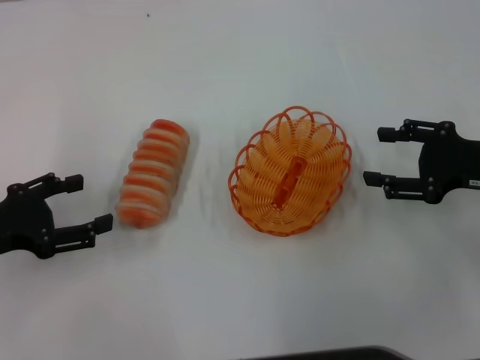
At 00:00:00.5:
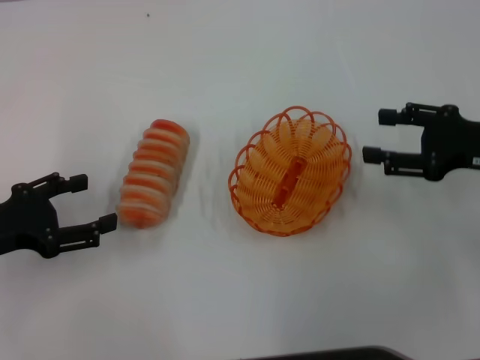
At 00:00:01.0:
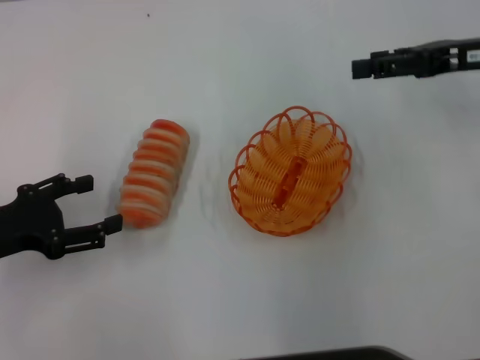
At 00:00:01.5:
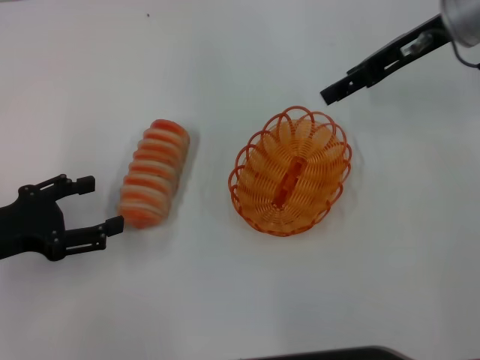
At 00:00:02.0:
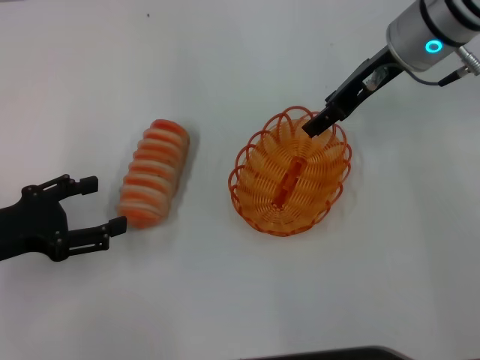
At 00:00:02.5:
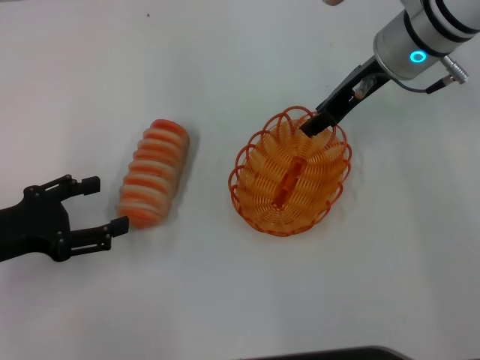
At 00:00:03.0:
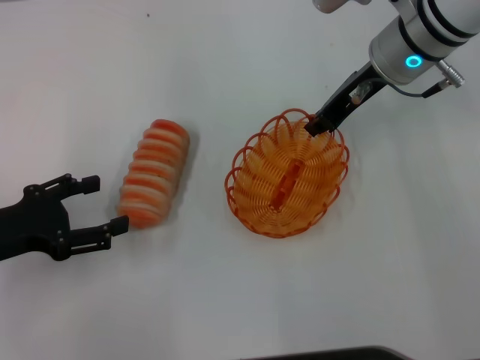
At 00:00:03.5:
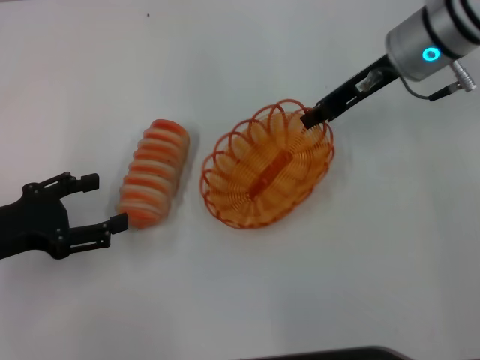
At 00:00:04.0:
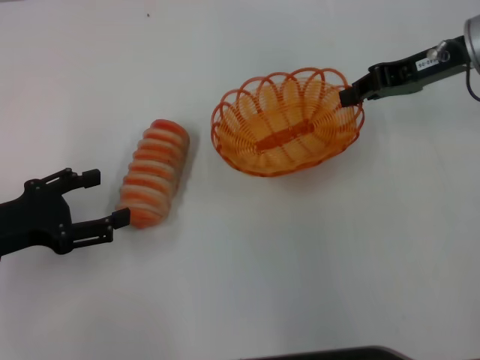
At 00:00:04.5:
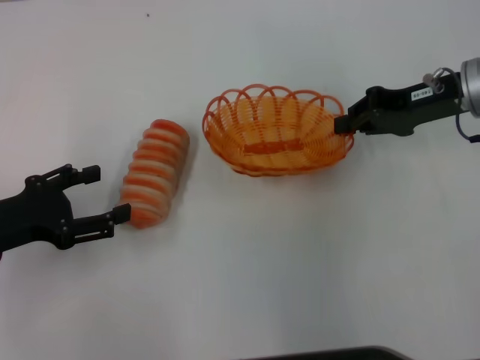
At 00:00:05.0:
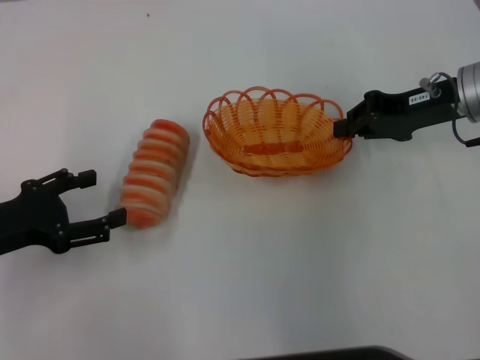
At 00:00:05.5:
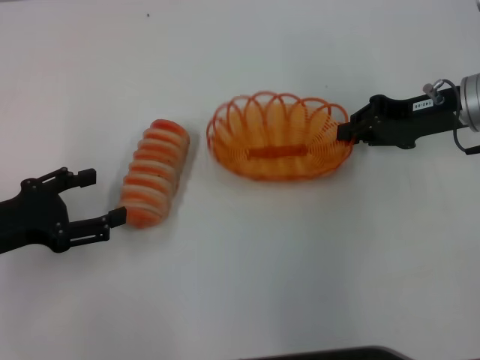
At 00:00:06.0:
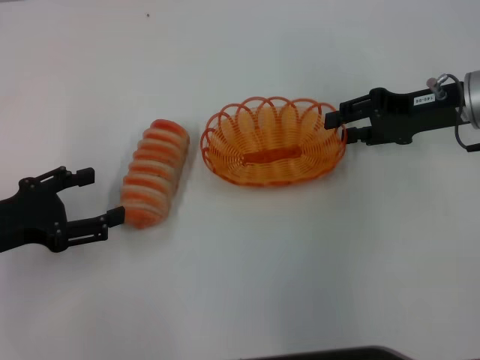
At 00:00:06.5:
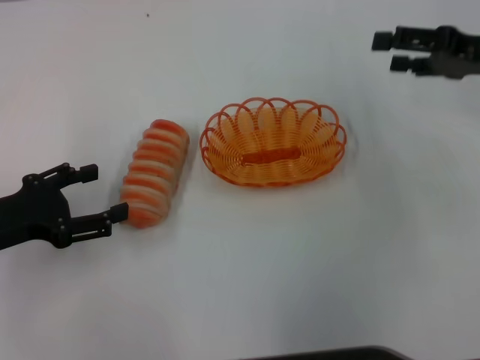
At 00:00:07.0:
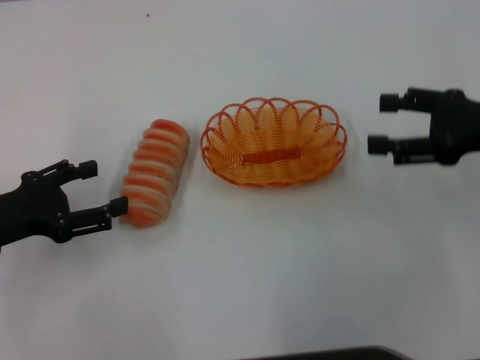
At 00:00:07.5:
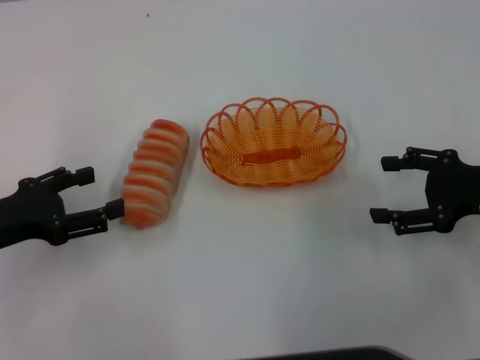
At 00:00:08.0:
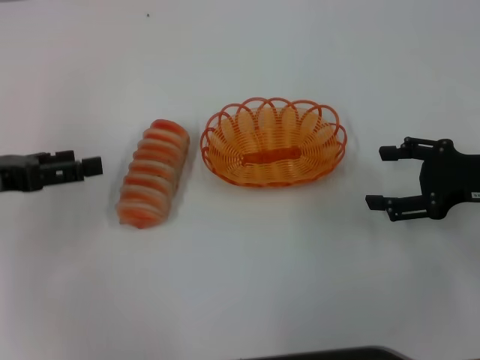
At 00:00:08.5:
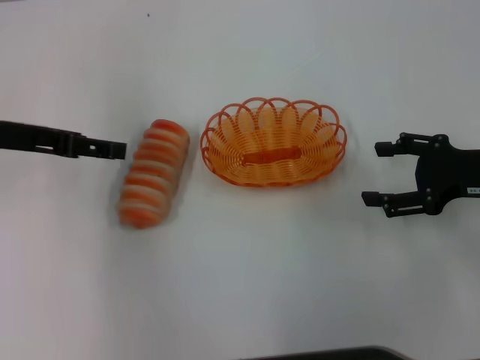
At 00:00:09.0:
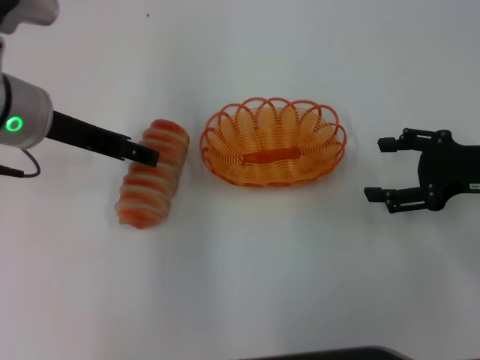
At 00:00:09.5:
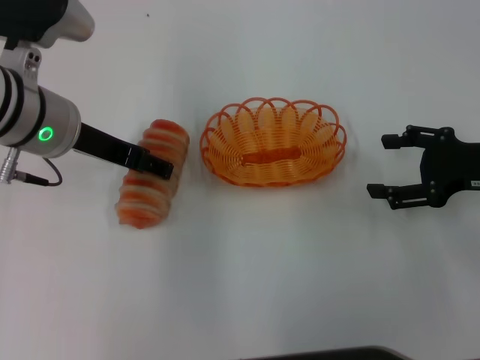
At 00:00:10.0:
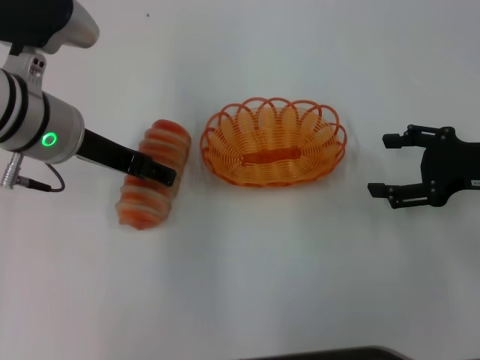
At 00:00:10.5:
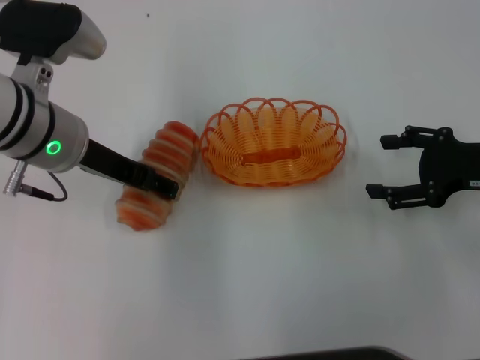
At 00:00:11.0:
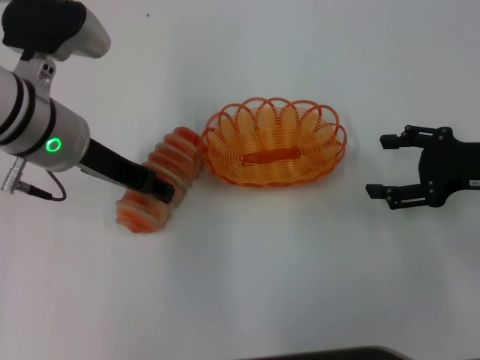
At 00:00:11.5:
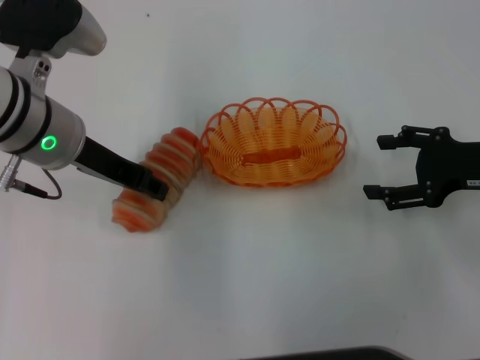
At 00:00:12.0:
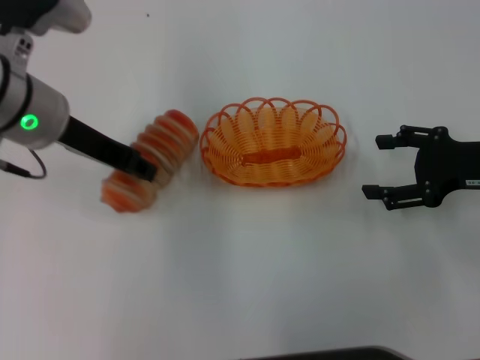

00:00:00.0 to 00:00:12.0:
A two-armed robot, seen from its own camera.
Step, 00:00:00.0 to 00:00:03.5: Pick up the basket with the right gripper.
Step, 00:00:04.0 to 00:00:06.5: Place the basket in the center of view with the right gripper.
00:00:00.0 to 00:00:02.0: The right gripper moves forward, to the left and upward, approximately 20 cm.
00:00:02.0 to 00:00:04.0: The right gripper heads to the right, covering roughly 10 cm, and closes up.
00:00:04.0 to 00:00:06.0: The right gripper moves about 5 cm.
00:00:06.0 to 00:00:08.0: The right gripper goes approximately 10 cm backward, and opens up; the left gripper changes place by approximately 5 cm.
00:00:08.0 to 00:00:10.0: The left gripper is displaced to the right by some 15 cm.
00:00:10.0 to 00:00:12.0: The left gripper closes up.

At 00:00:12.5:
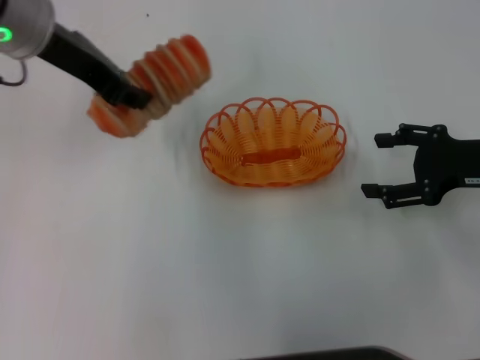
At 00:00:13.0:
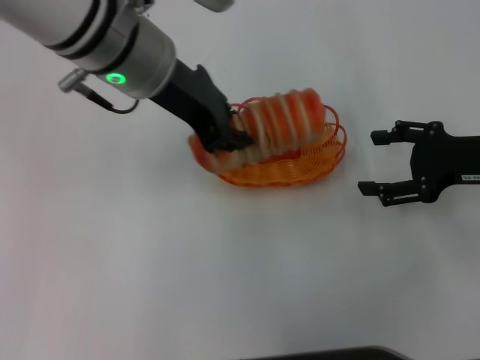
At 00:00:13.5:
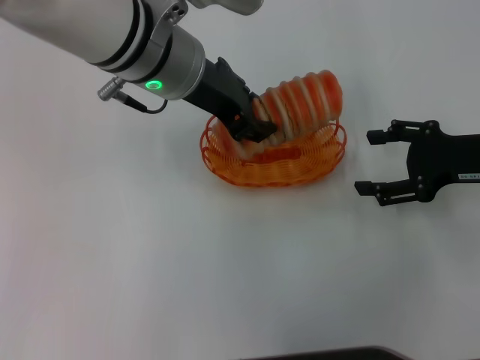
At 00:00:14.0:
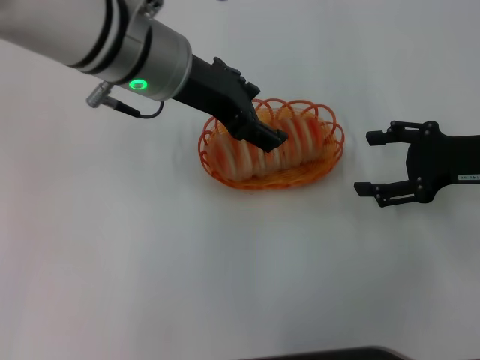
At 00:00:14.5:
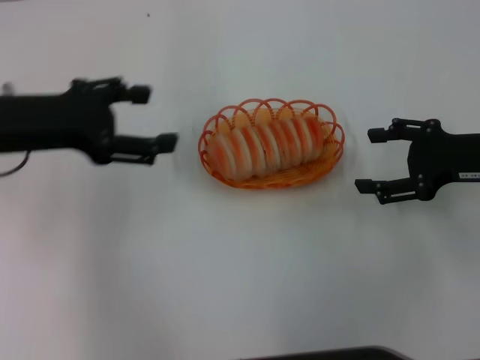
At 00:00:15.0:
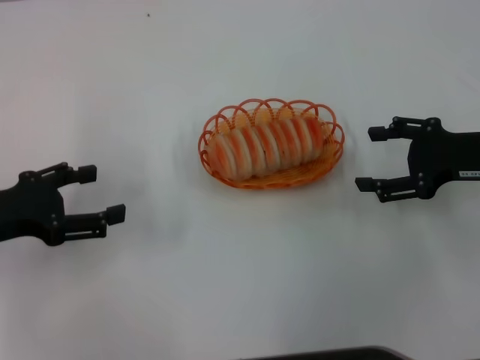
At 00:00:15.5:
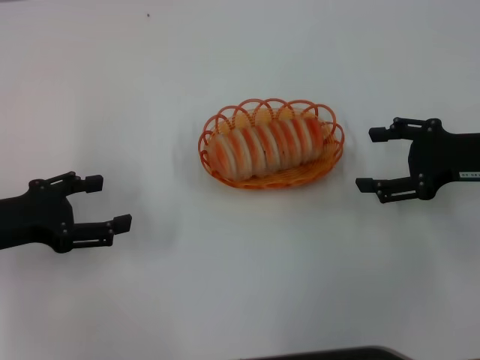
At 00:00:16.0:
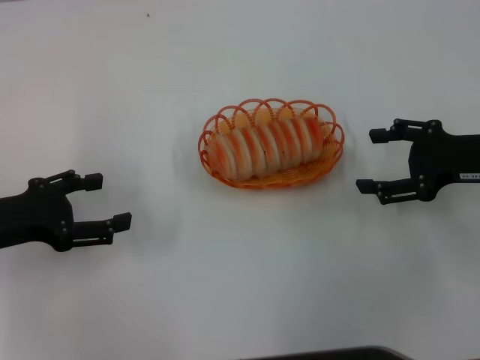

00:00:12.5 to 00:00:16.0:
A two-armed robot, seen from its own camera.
Step, 00:00:12.5 to 00:00:14.0: Place the long bread into the basket with the left gripper.
00:00:12.5 to 00:00:14.5: The left gripper goes roughly 10 cm to the left, downward and backward, and opens its fingers.
00:00:14.5 to 00:00:16.0: The left gripper shifts about 10 cm downward, backward and to the left.

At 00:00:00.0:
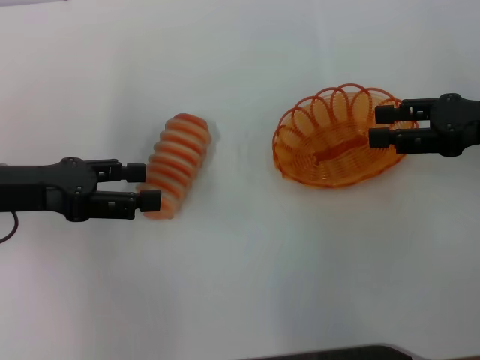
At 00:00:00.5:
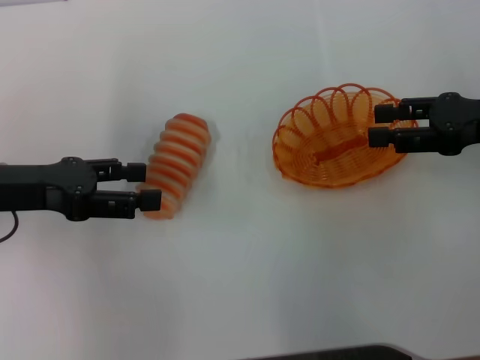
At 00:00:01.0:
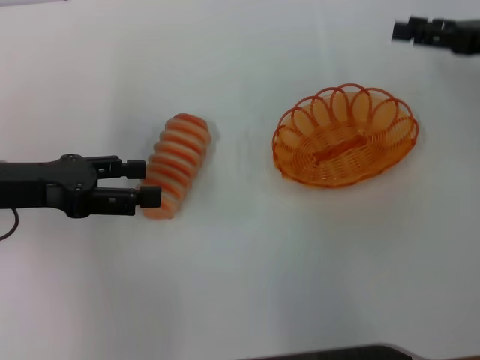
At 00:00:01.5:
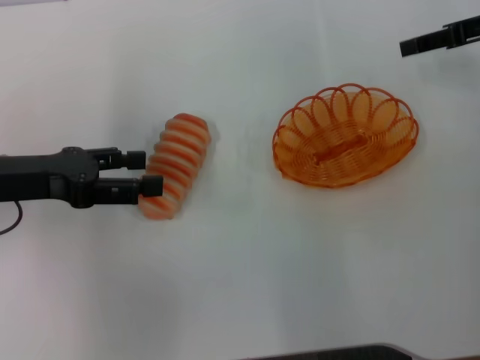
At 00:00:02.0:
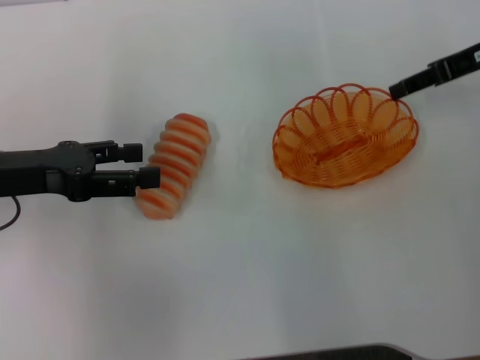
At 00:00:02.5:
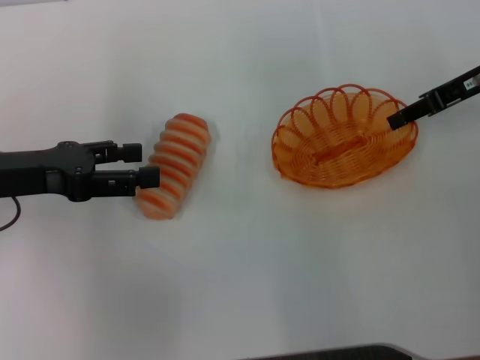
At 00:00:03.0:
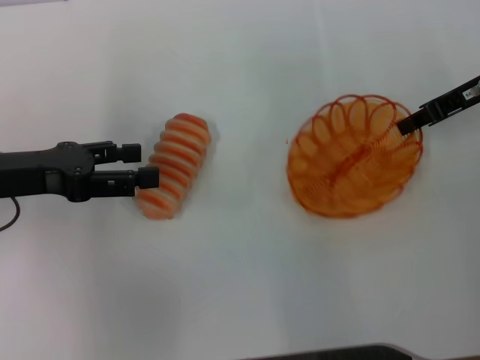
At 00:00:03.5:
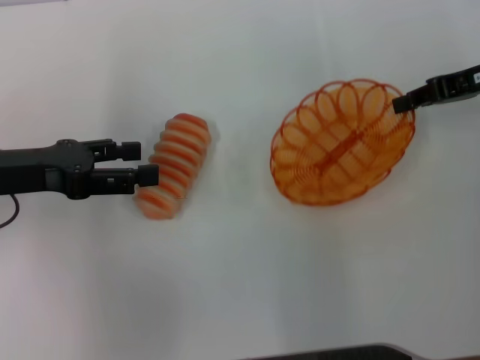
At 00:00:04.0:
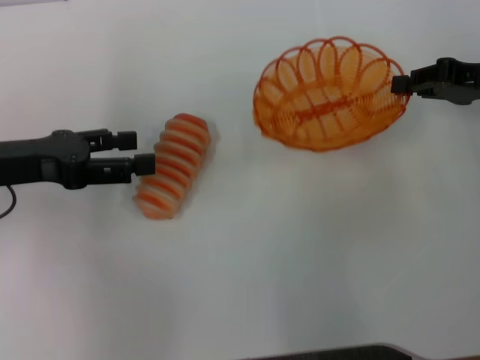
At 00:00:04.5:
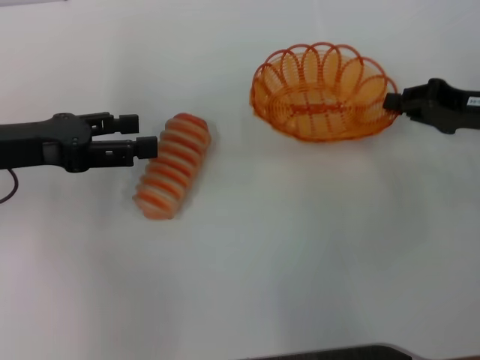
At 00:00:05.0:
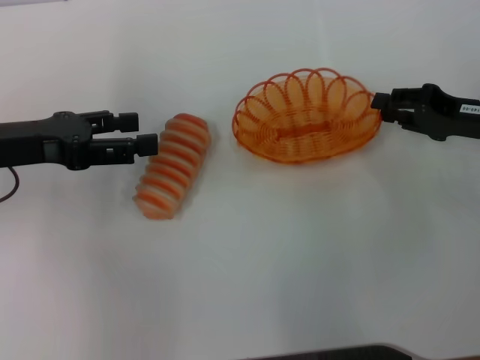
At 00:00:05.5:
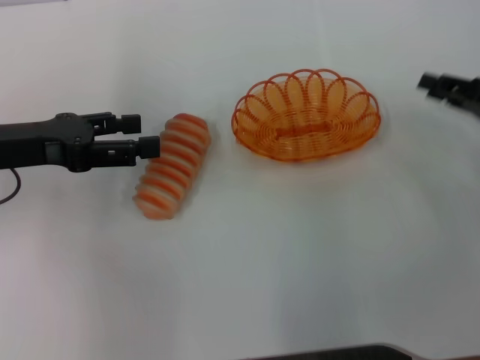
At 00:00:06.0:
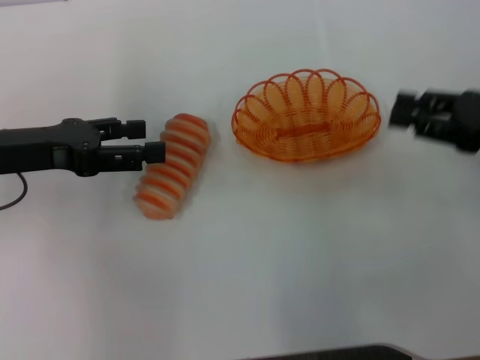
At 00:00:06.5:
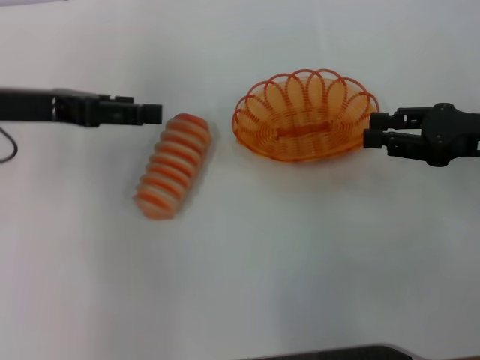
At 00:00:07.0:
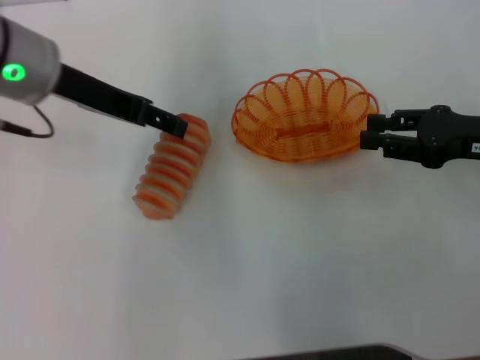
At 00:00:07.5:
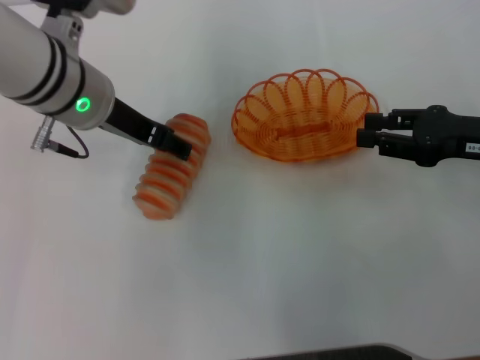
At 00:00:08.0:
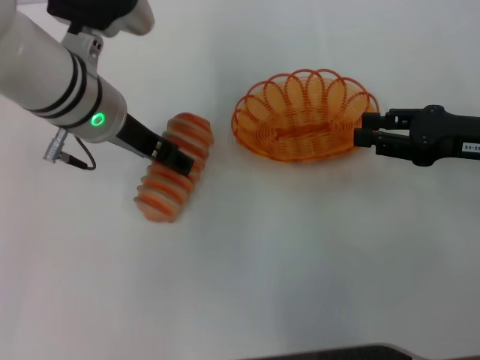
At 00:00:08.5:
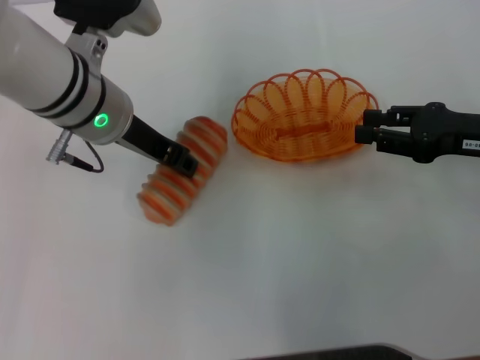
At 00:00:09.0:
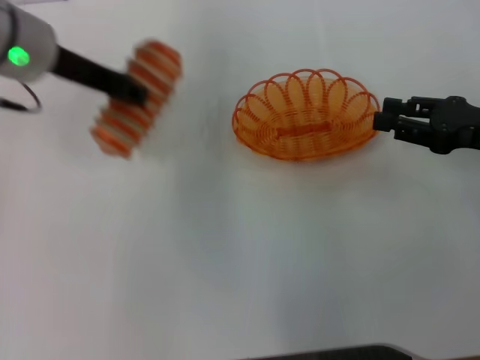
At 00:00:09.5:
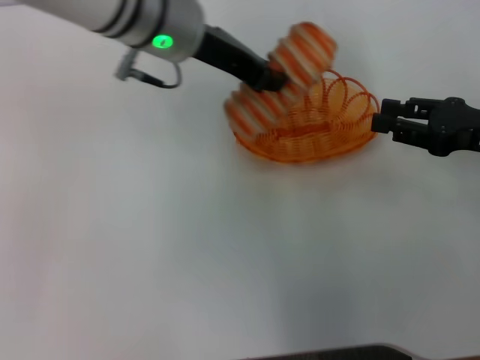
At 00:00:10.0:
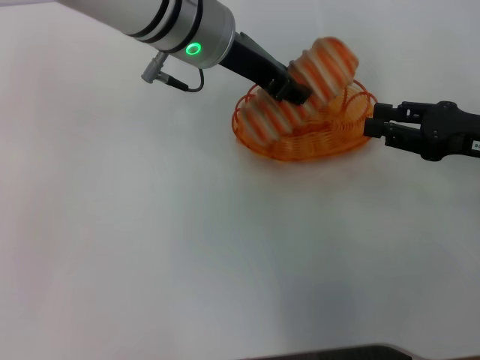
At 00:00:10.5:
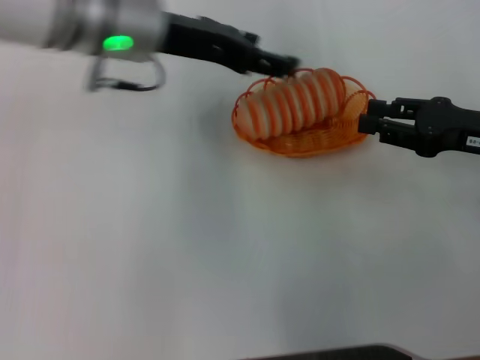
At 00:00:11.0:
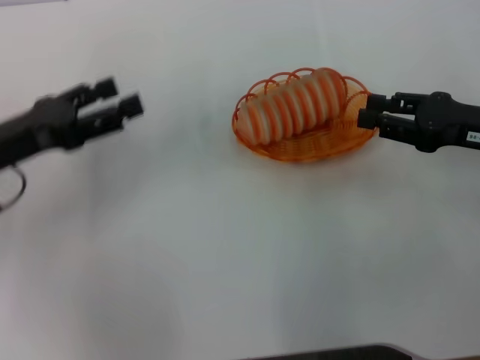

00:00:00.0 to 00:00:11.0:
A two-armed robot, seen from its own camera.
Step, 00:00:00.0 to 00:00:04.0: Pick up the basket with the right gripper.
Step, 00:00:04.5 to 00:00:05.5: Place the basket in the center of view with the right gripper.
Step, 00:00:06.0 to 00:00:08.5: Pick up the long bread with the left gripper.
Step, 00:00:09.0 to 00:00:10.5: Place the long bread into the basket with the left gripper.
00:00:00.0 to 00:00:02.0: The right gripper heads forward, covering approximately 10 cm.
00:00:02.0 to 00:00:03.5: The right gripper closes up.
00:00:03.5 to 00:00:05.5: The right gripper travels backward and downward by some 10 cm, and opens.
00:00:05.5 to 00:00:07.5: The left gripper travels to the right by roughly 15 cm.
00:00:07.5 to 00:00:09.0: The left gripper moves roughly 5 cm, and closes its fingers.
00:00:09.0 to 00:00:11.0: The left gripper shifts roughly 15 cm downward, to the left and backward, and opens.
